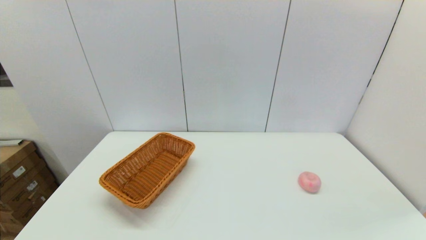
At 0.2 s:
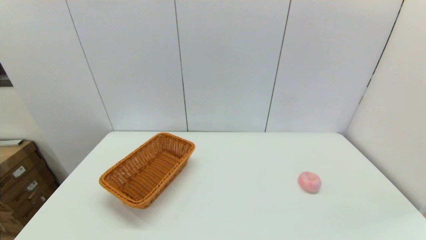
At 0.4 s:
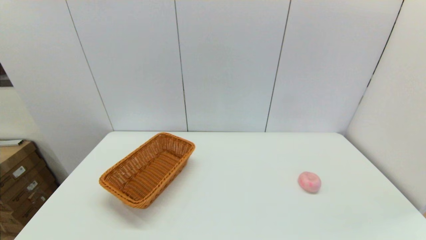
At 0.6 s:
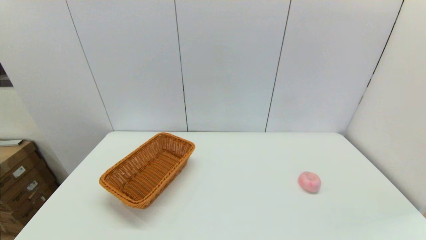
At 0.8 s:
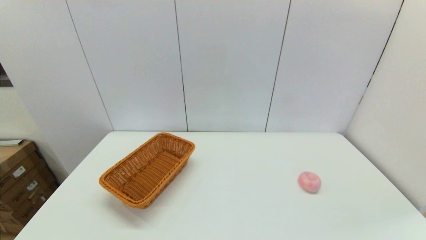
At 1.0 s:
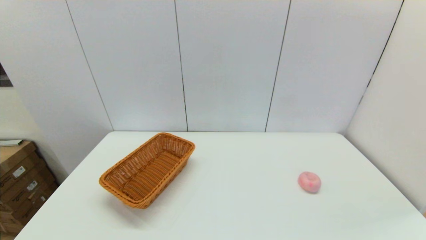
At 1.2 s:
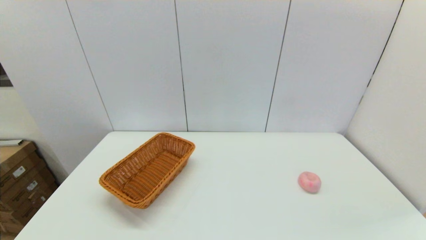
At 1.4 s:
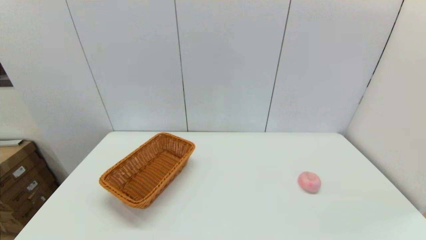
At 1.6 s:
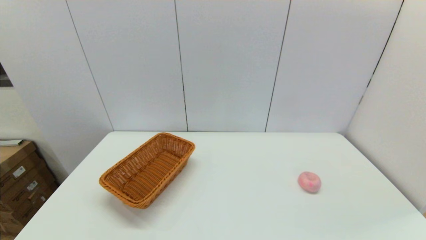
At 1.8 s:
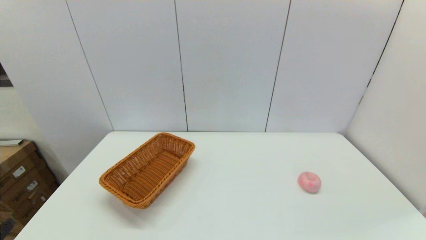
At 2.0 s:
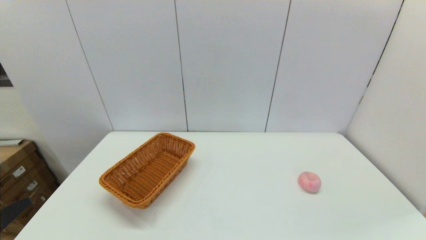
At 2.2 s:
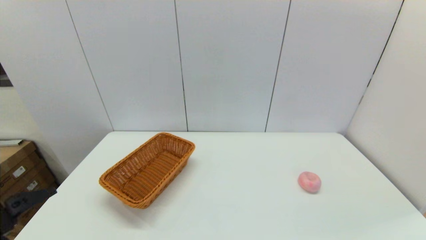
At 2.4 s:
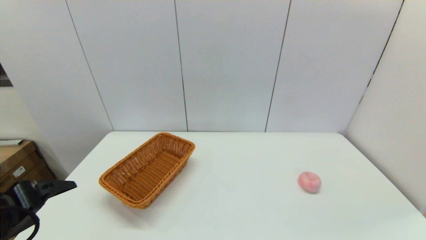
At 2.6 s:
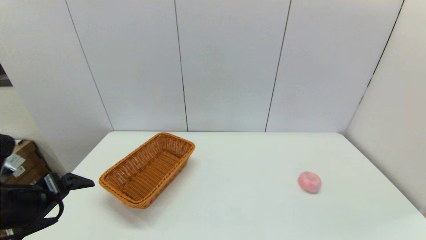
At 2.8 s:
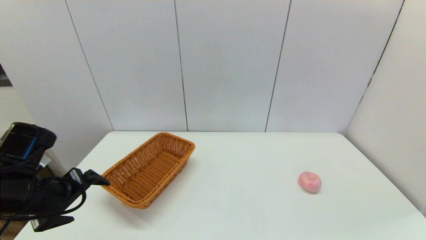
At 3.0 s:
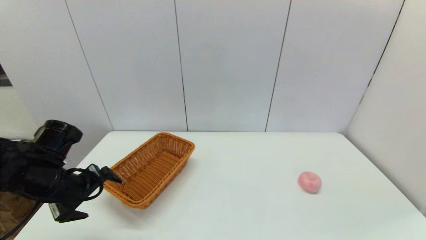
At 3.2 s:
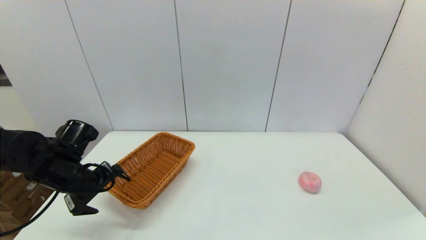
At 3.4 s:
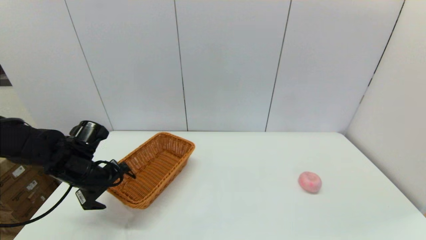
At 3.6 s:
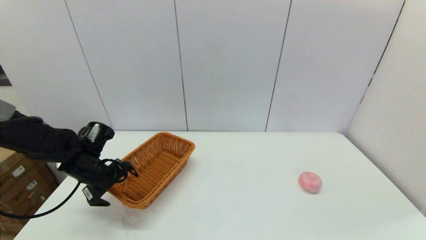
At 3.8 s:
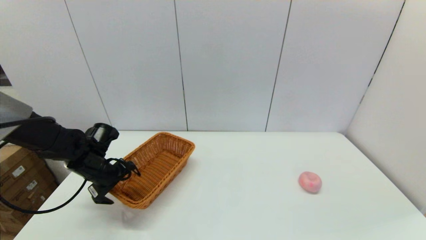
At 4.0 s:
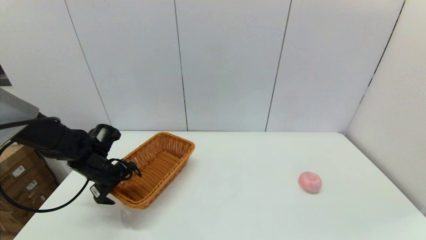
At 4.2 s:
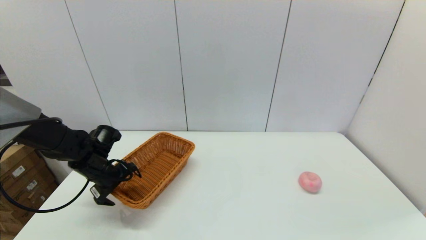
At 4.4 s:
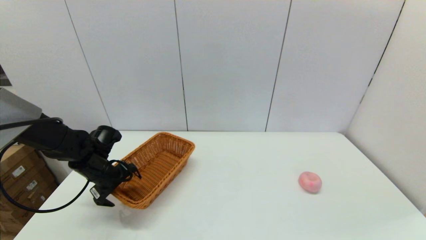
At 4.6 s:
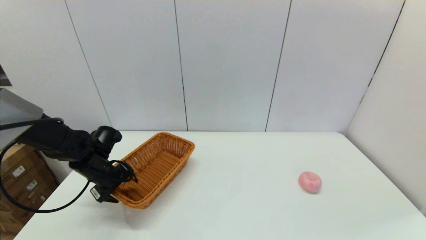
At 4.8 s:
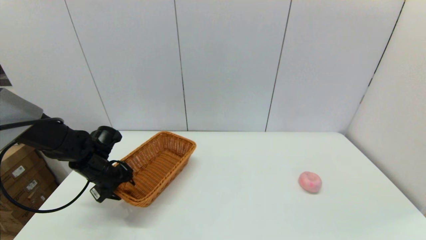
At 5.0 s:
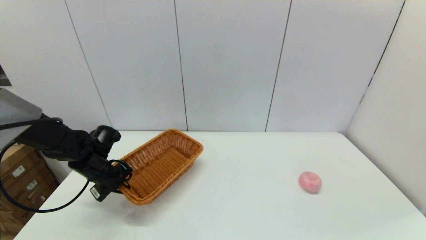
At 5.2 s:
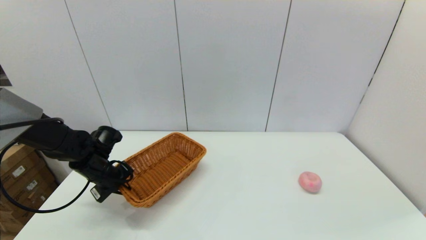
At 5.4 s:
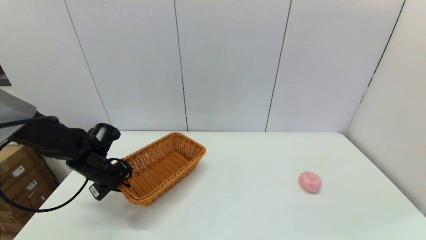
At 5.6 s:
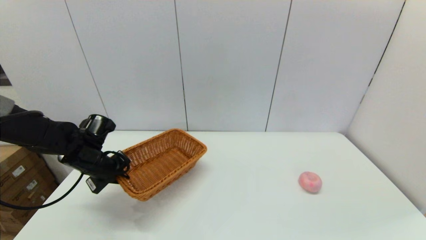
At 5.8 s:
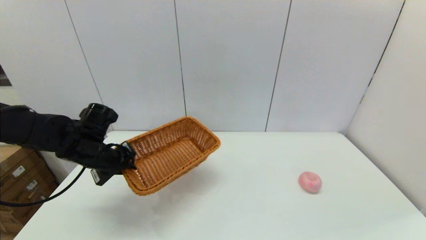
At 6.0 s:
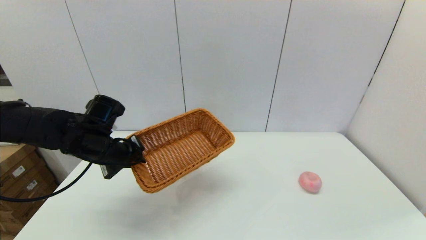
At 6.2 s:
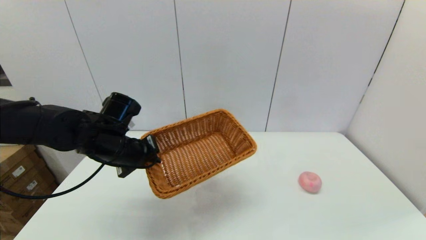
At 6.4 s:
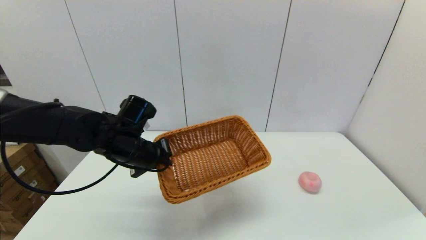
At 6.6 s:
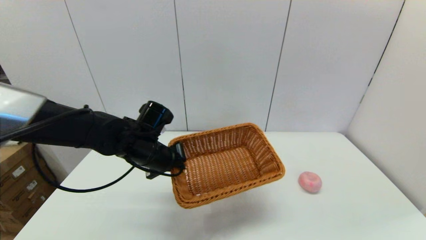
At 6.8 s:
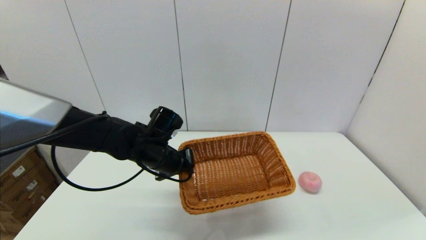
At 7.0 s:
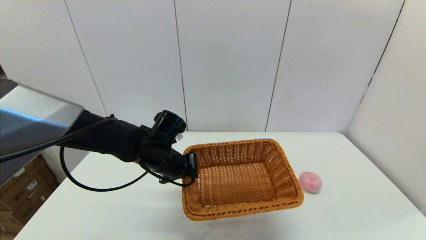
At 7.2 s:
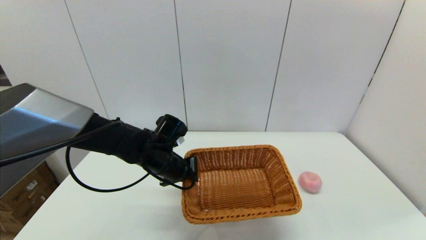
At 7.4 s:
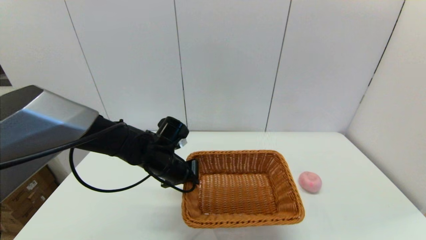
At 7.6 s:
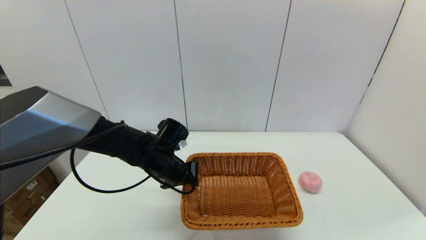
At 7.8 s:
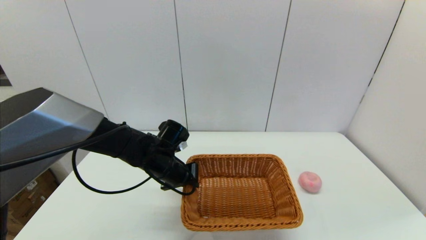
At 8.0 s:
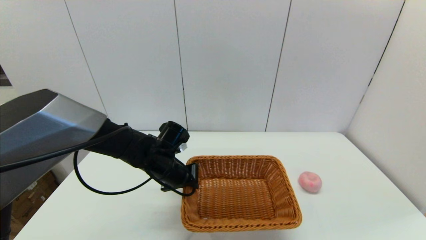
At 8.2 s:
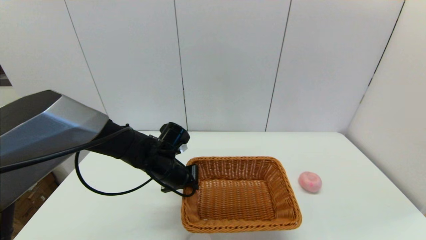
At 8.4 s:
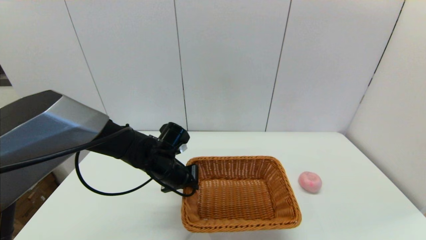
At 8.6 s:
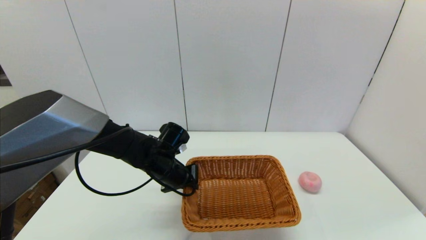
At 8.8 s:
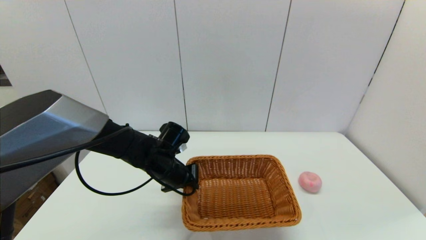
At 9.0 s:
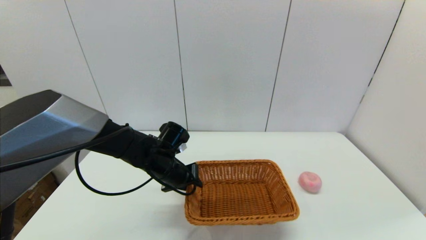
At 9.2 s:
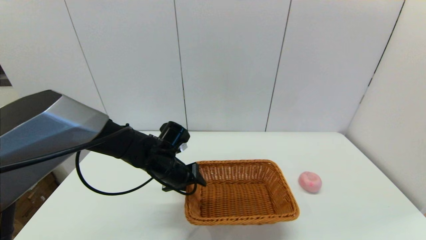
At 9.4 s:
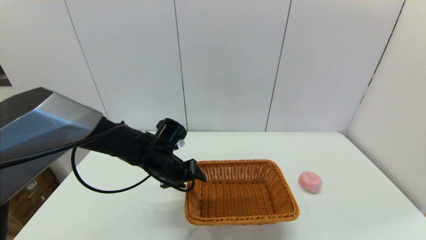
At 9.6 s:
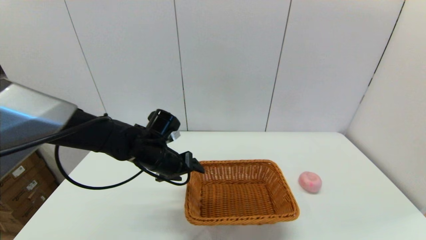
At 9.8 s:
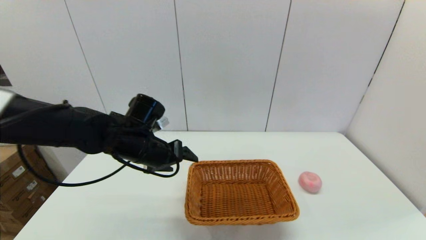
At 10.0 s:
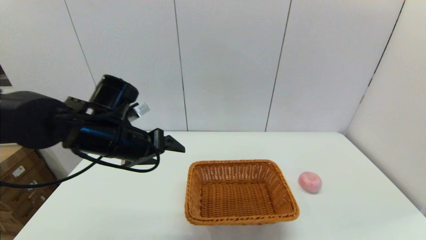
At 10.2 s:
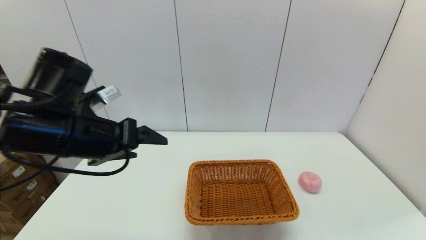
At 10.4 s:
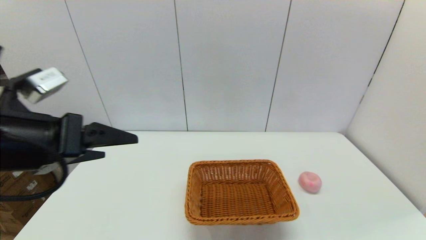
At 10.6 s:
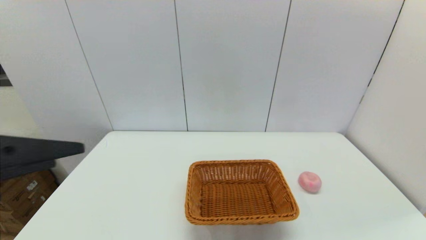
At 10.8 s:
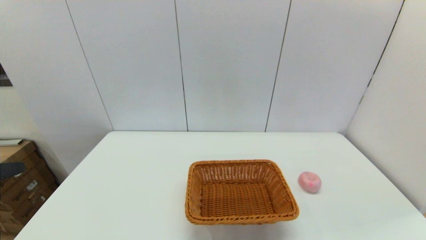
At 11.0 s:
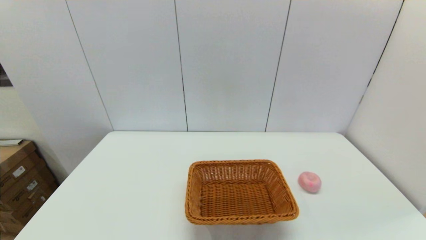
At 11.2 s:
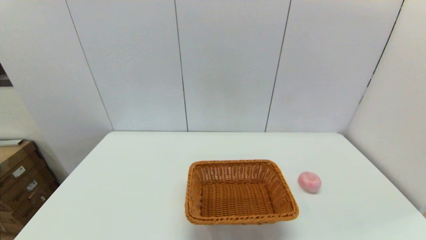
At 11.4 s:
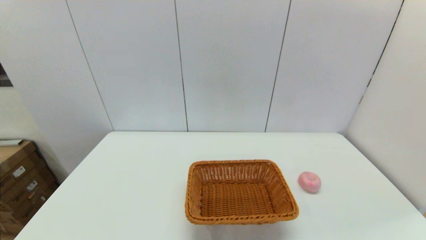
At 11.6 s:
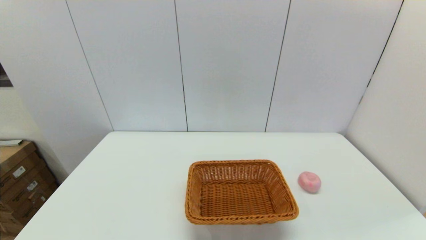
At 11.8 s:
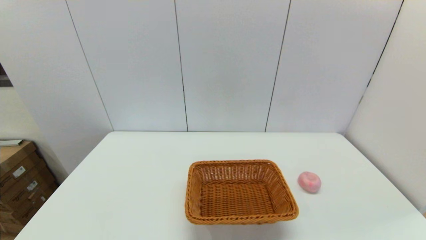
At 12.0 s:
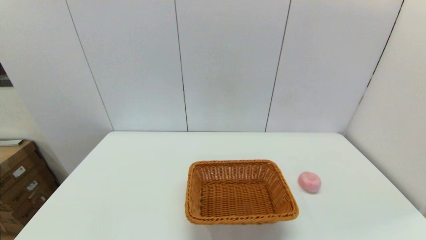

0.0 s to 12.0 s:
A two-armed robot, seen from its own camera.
Step, 0.0 to 5.0 s: Grasp the light basket with the left gripper.
Step, 5.2 to 9.2 s: Place the light basket on the middle of the table with the left gripper.
1.6 to 3.0 s: The left gripper heads forward, covering some 25 cm.
3.0 to 4.4 s: The left gripper travels forward and downward by some 10 cm.
4.4 to 6.0 s: The left gripper goes roughly 10 cm upward and to the right, and closes.
6.0 to 7.6 s: The left gripper heads to the right and downward, covering approximately 15 cm.
7.6 to 9.0 s: The left gripper opens up.
9.0 to 10.4 s: The left gripper is displaced upward, backward and to the left by about 30 cm, and opens its fingers.
10.4 to 12.0 s: The left gripper goes about 25 cm downward and backward.

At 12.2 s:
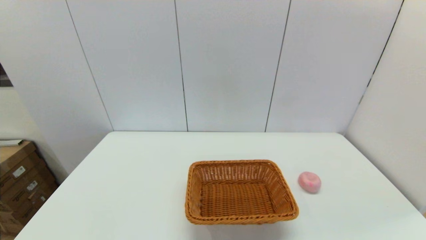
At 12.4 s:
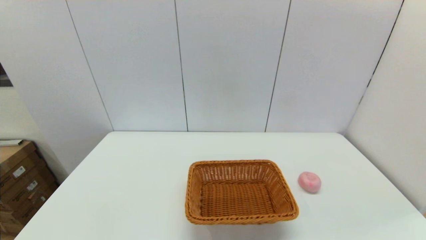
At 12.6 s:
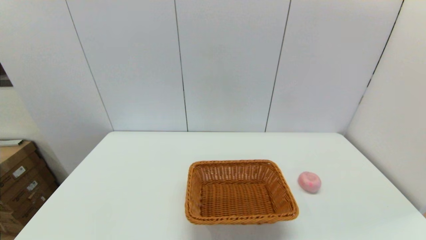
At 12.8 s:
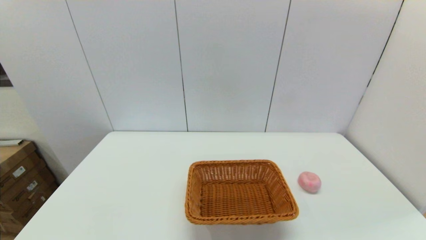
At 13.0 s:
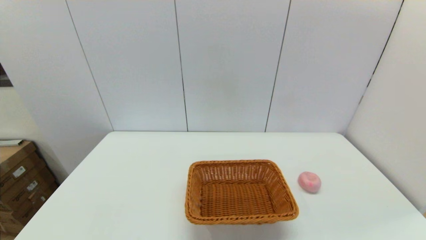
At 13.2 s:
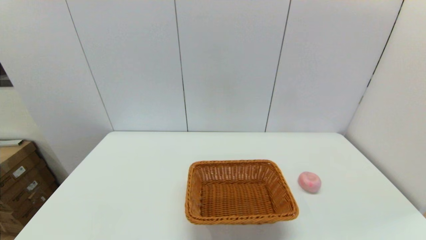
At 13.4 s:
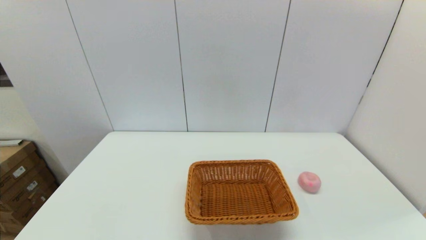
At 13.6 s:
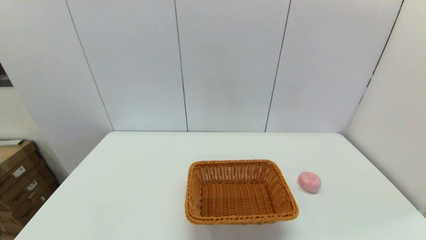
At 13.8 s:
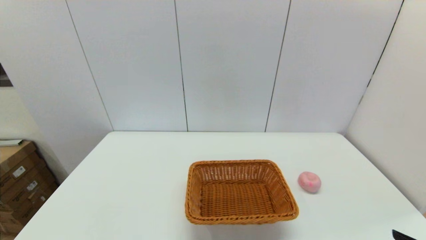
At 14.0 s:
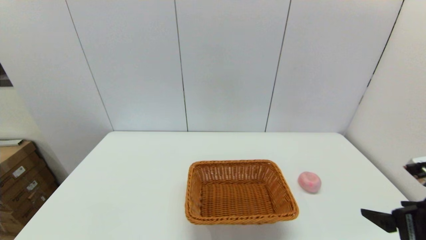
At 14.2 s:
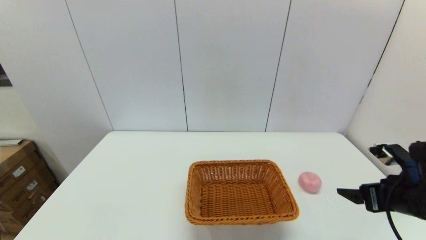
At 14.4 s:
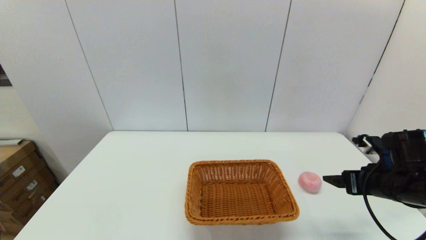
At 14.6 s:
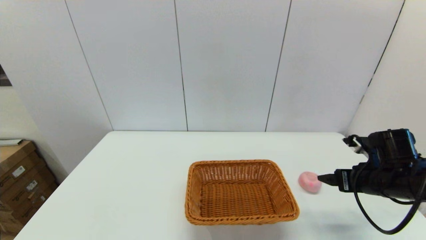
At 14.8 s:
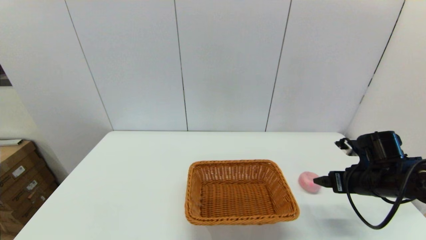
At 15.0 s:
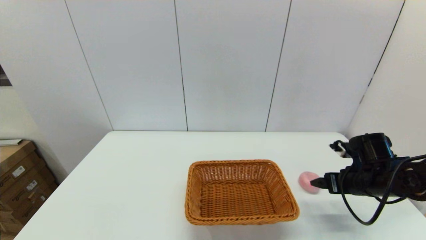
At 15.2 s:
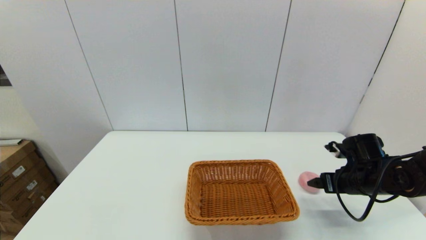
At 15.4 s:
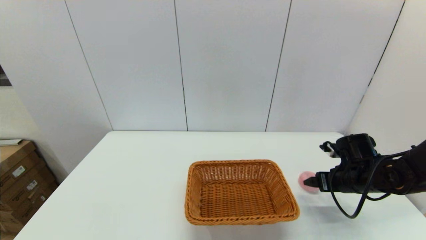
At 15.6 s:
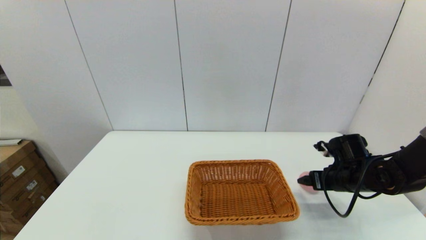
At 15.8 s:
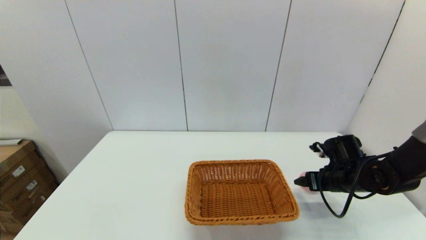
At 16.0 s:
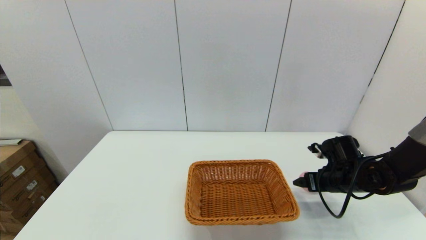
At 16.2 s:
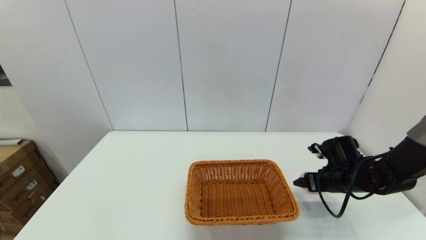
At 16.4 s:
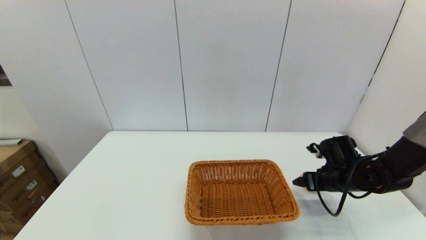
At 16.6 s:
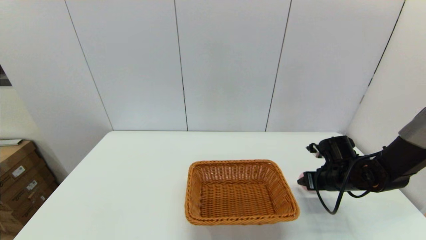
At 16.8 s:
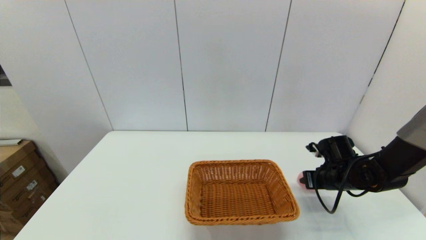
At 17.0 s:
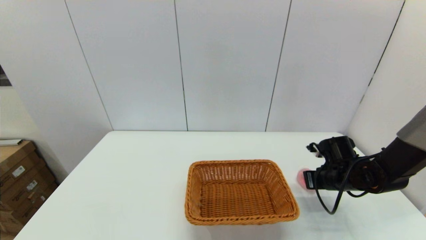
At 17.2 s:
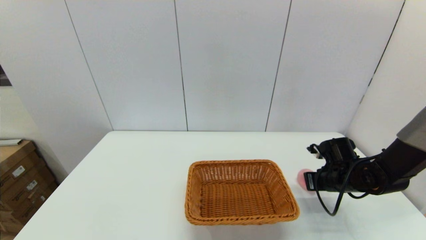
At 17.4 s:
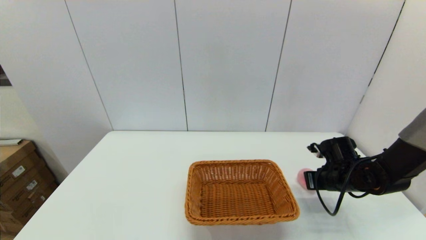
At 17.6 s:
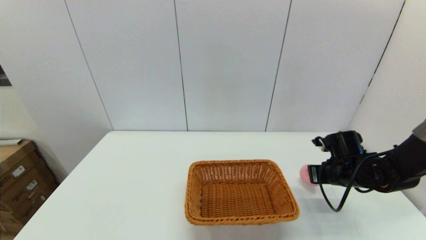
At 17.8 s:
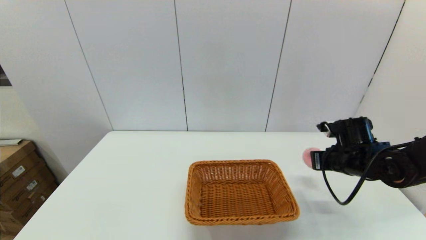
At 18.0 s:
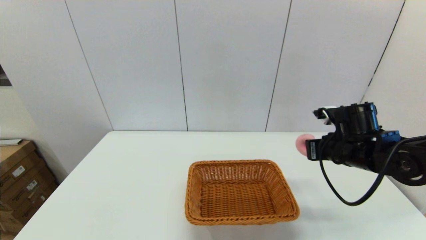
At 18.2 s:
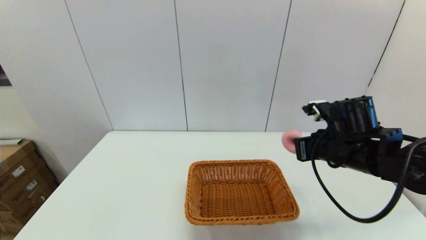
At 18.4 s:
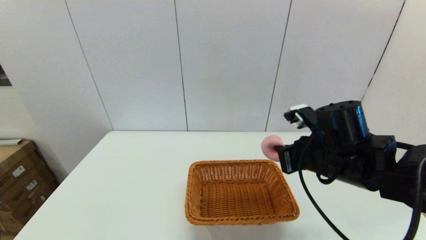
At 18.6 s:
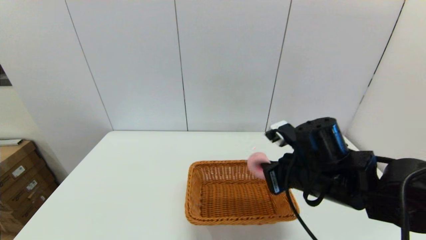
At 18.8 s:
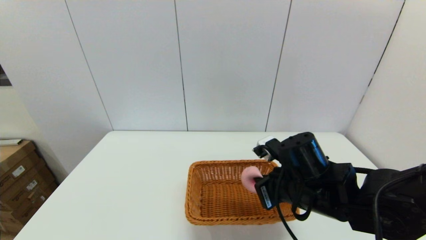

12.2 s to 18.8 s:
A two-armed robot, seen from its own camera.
Step, 12.2 to 17.0 s: Grasp the peach with the right gripper.
13.8 to 15.4 s: The right gripper shifts approximately 25 cm forward and downward.
15.4 to 17.2 s: The right gripper closes up.
17.2 to 18.8 s: The right gripper moves to the left, upward and backward, about 20 cm.
